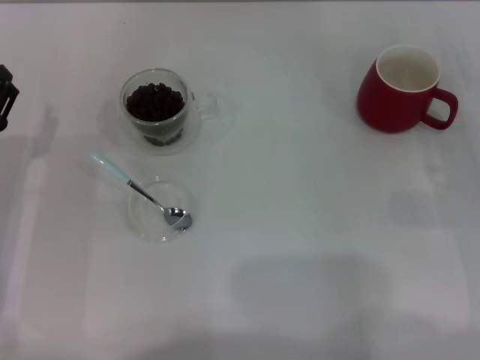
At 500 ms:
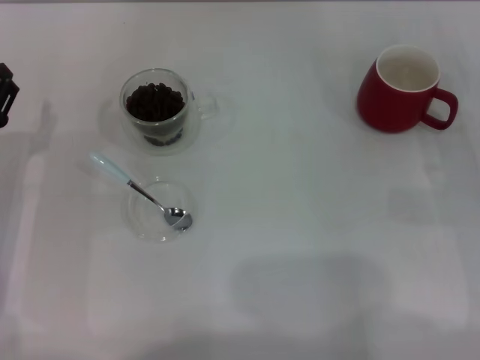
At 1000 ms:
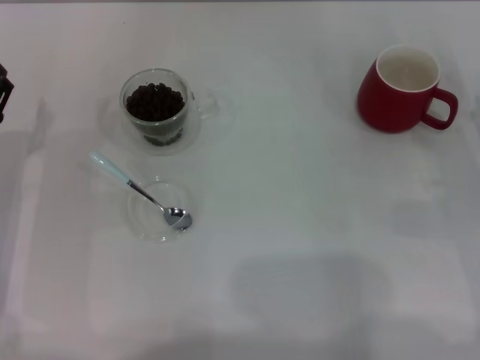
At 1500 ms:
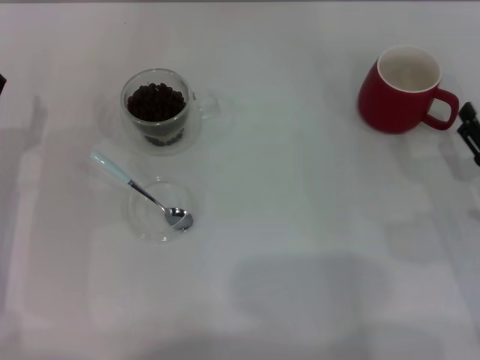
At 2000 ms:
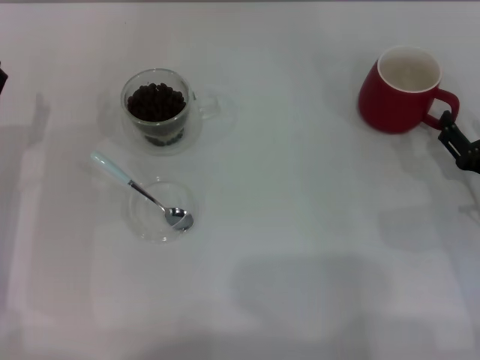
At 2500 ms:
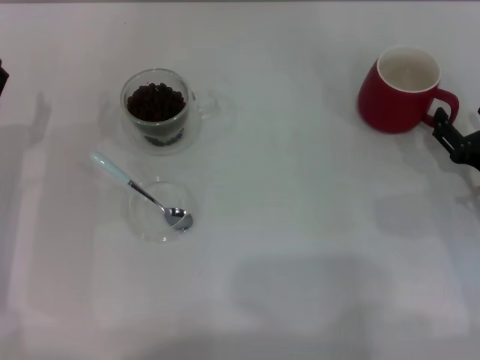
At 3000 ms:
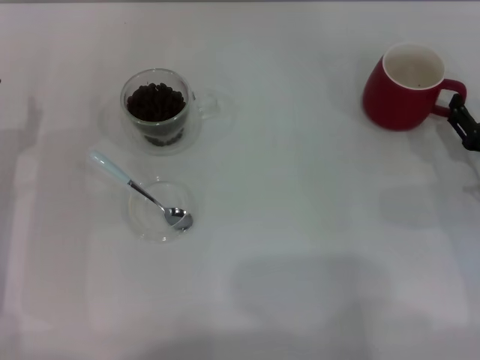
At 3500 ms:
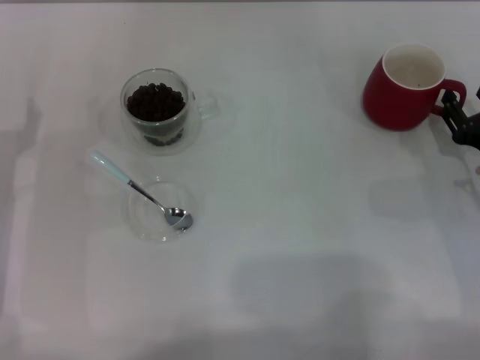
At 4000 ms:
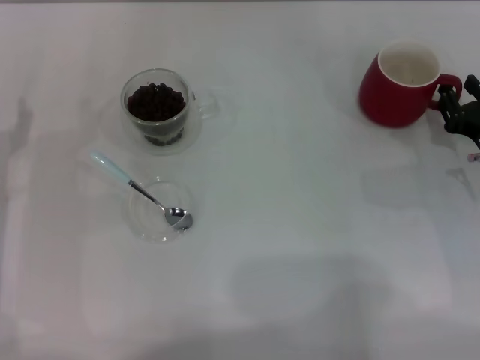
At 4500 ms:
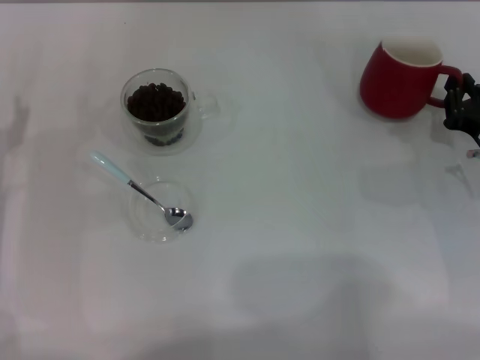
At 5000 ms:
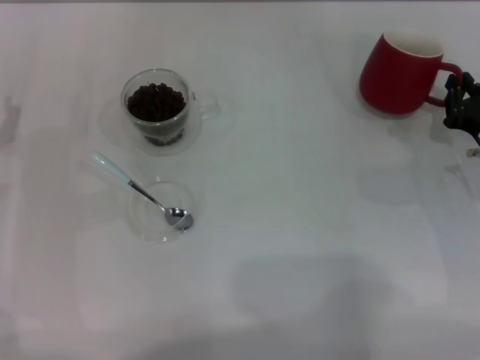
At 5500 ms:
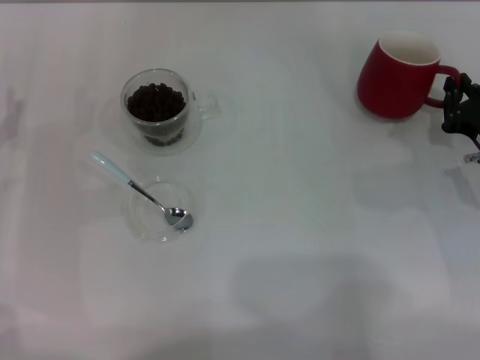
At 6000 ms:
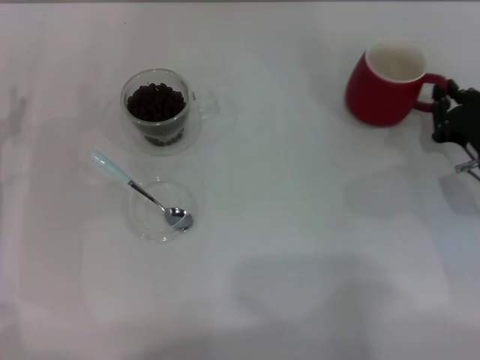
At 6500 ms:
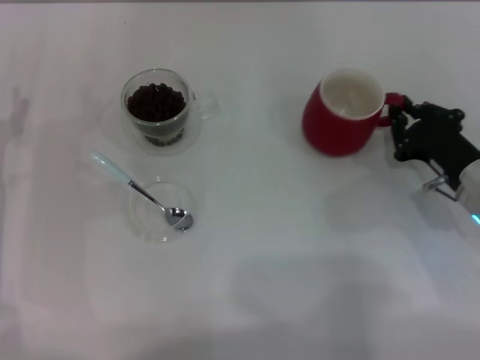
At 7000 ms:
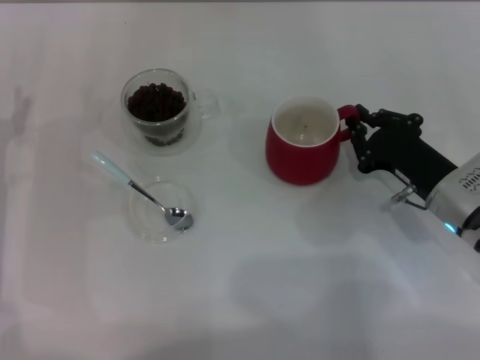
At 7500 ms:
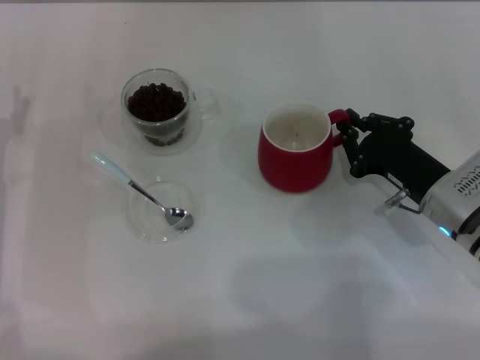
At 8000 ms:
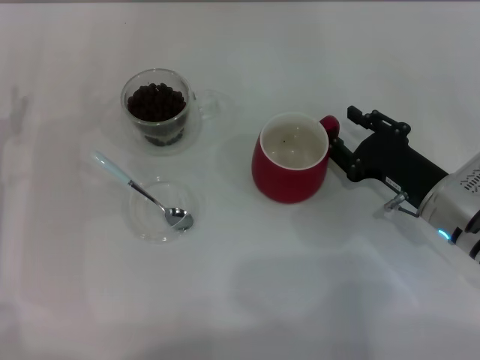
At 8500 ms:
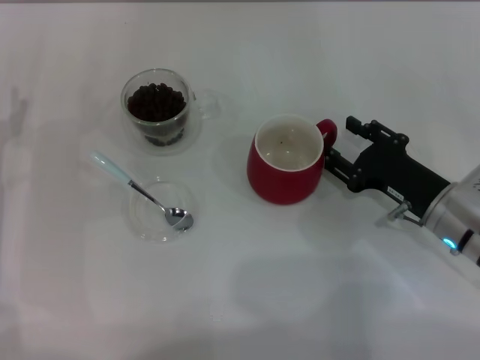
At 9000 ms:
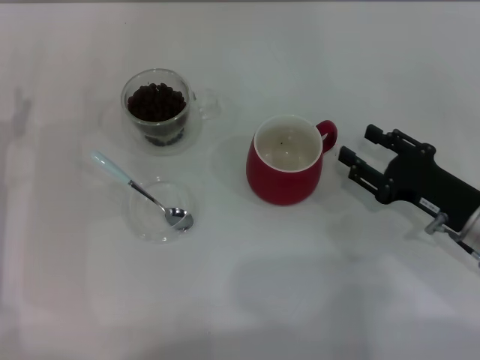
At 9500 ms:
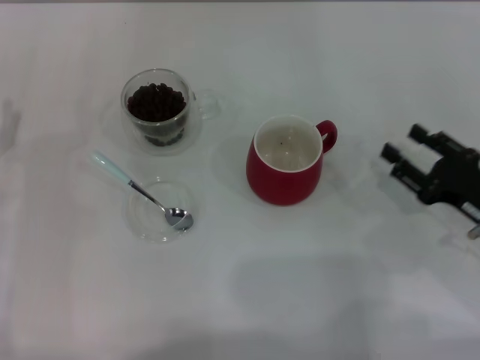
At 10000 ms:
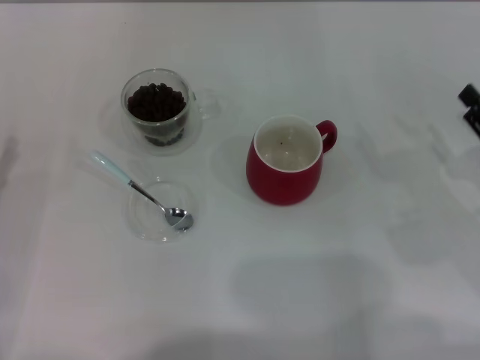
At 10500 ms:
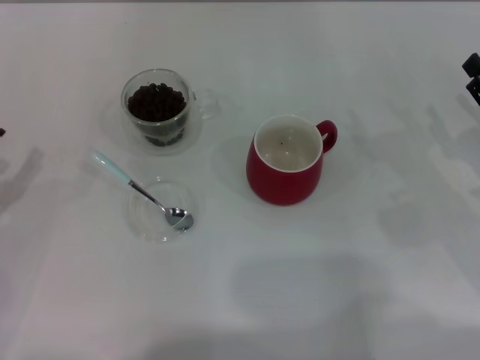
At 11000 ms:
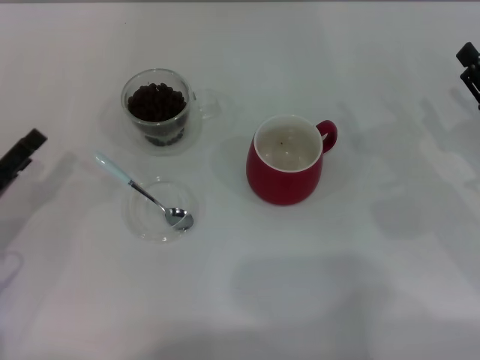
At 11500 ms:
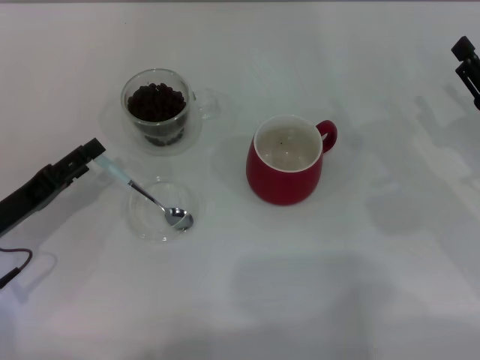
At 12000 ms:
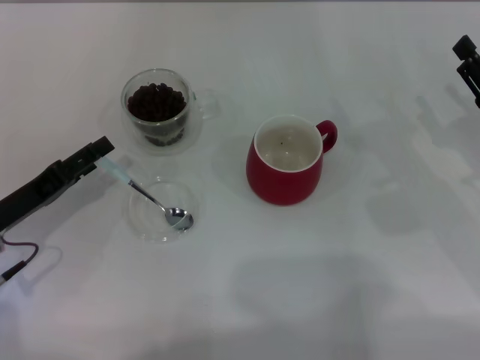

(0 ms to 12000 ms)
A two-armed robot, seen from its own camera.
Task of the whole recording: Use a blue spoon to take out the coffee beans from the glass and pour them into the red cup.
Step, 0 ms - 9000 ms: Move the cup to the center of view with the left gripper.
0 ms - 2000 ms: The right gripper changes place by roughly 5 cm.
2000 ms - 4000 ms: The right gripper goes about 5 cm forward, and closes up.
4000 ms - 6000 ms: The right gripper closes.
6000 ms - 8000 ms: The right gripper heads to the left, covering roughly 5 cm.
8000 ms - 10000 ms: The left gripper moves backward, some 5 cm. The right gripper is displaced to the right by approximately 10 cm, and opens its fingers.
10000 ms - 12000 ms: The left gripper heads to the right, covering roughly 5 cm.

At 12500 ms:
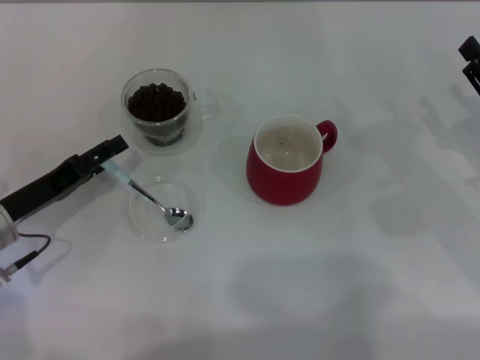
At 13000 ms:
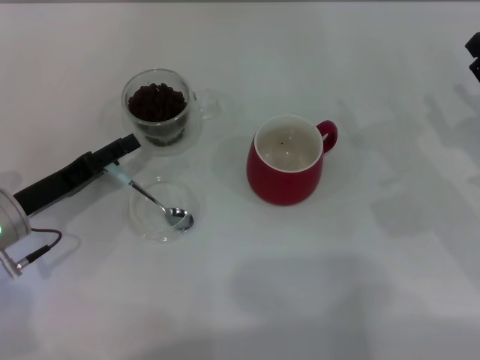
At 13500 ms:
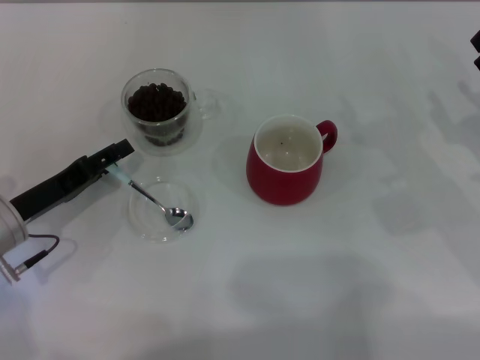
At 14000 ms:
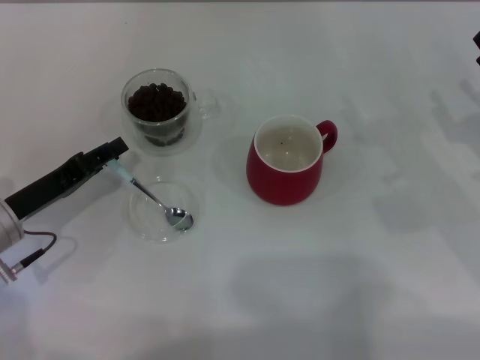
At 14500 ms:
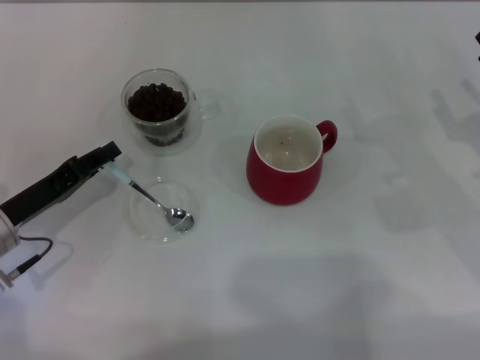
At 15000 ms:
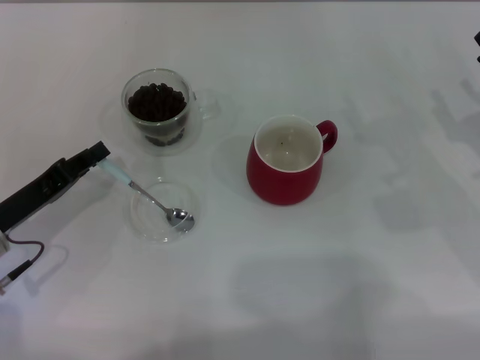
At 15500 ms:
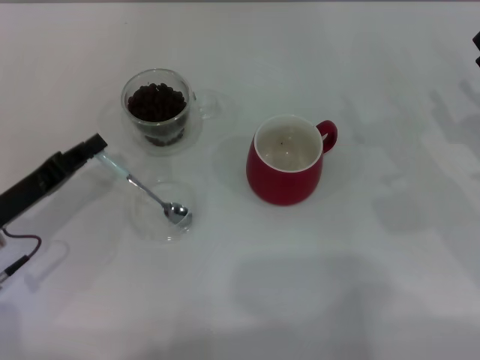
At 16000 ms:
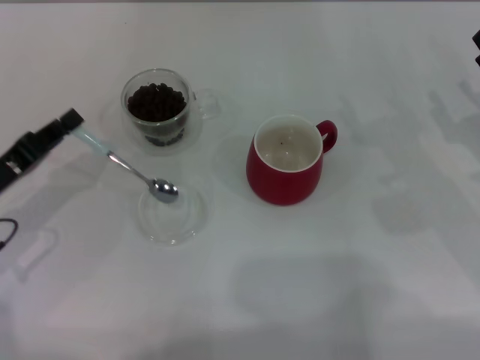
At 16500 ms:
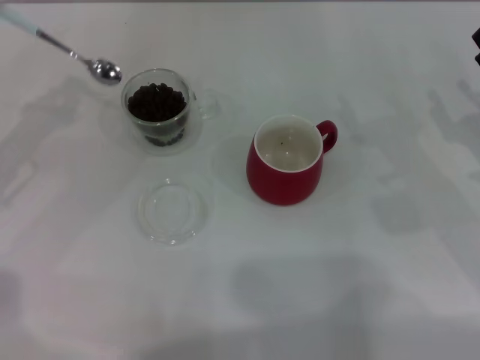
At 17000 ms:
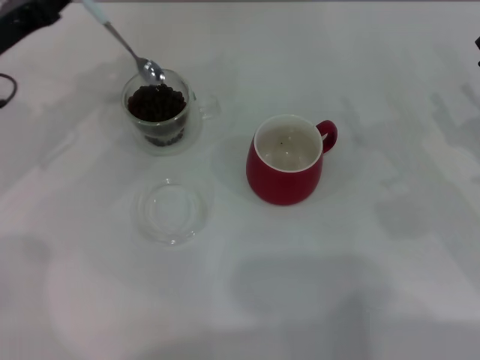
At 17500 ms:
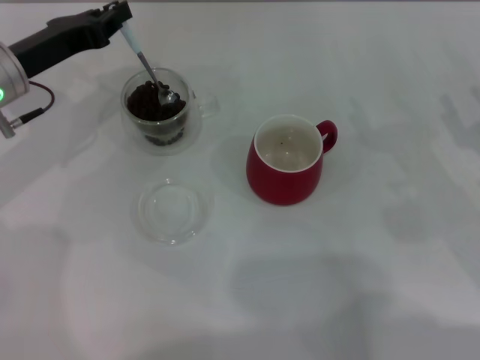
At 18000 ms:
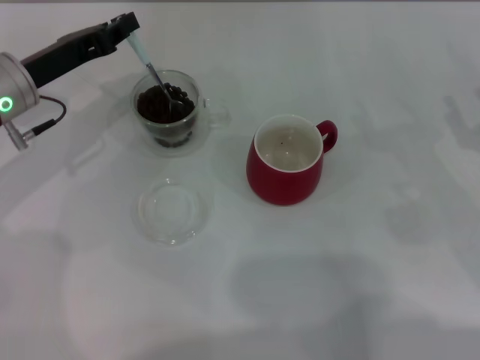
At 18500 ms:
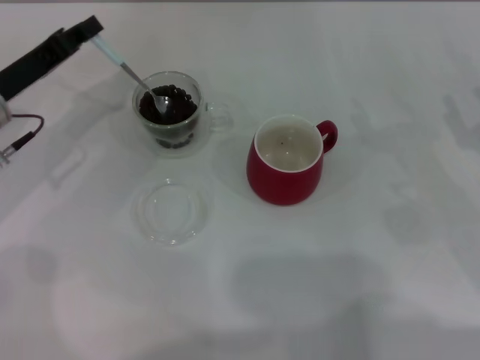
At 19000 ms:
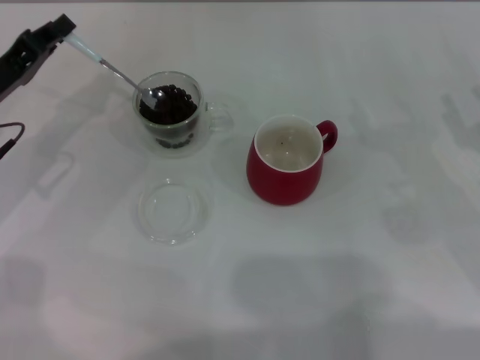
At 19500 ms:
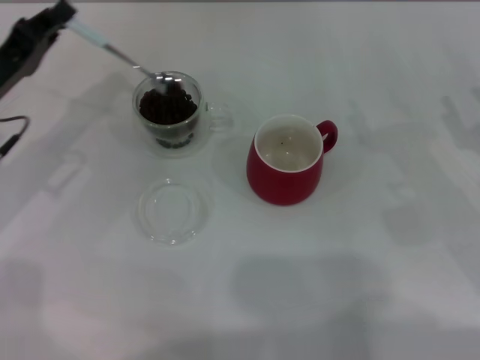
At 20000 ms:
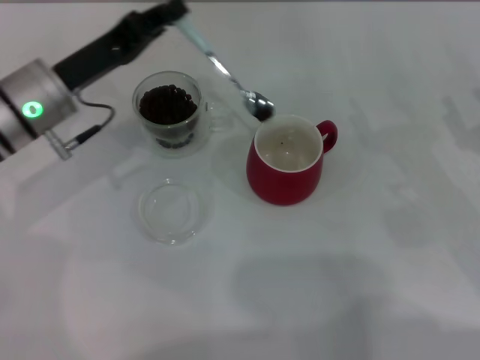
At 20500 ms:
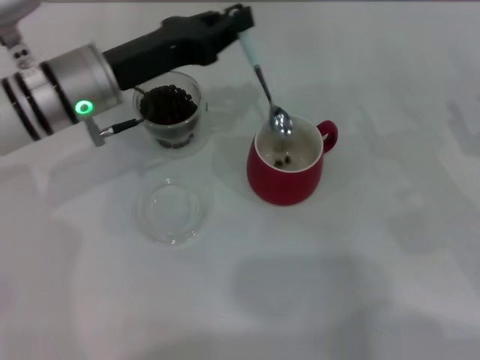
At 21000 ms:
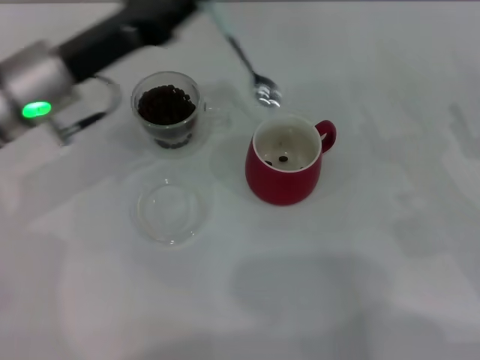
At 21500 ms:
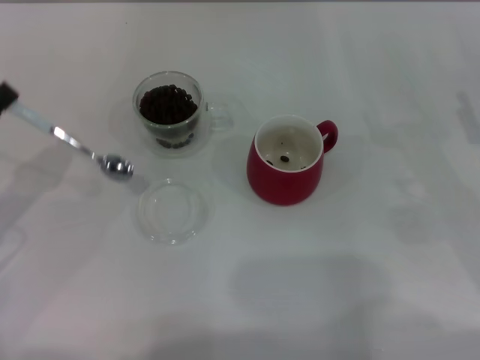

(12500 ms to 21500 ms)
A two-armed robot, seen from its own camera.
Task of the whole recording: Use a blue spoon to take out the coffee beans from the glass and pour them into the red cup.
Step, 12500 ms - 16000 ms: Pick up the spoon with the right gripper.
12500 ms - 14500 ms: The left gripper closes.
14500 ms - 17000 ms: The left gripper shifts roughly 15 cm forward and upward.
19500 ms - 21500 ms: The left gripper shifts approximately 10 cm backward, and moves about 10 cm to the right and comes back.

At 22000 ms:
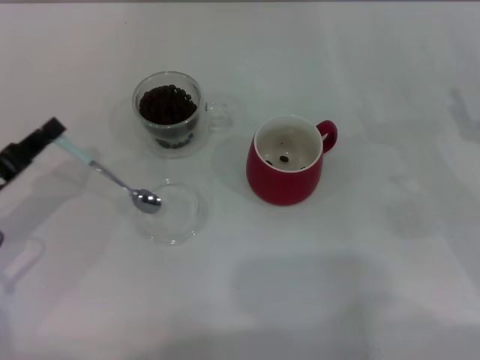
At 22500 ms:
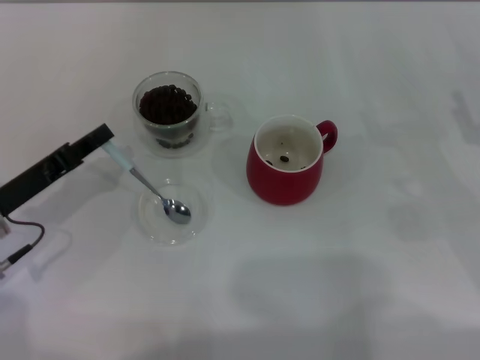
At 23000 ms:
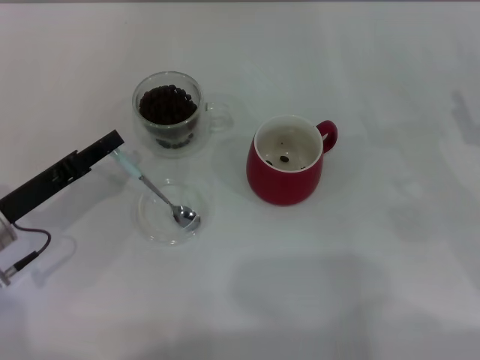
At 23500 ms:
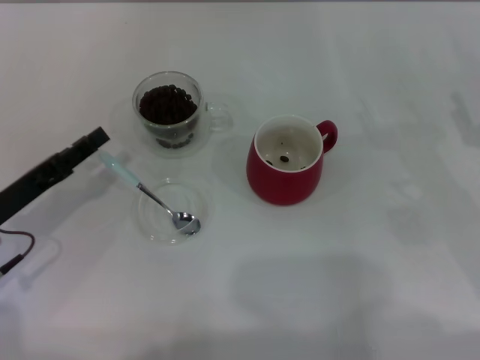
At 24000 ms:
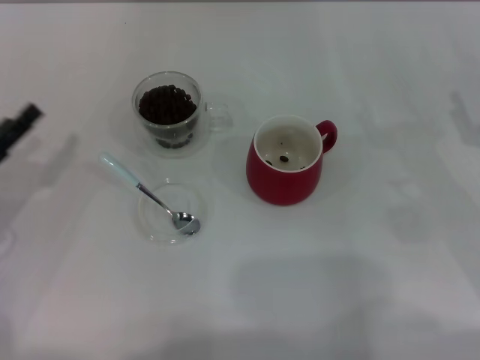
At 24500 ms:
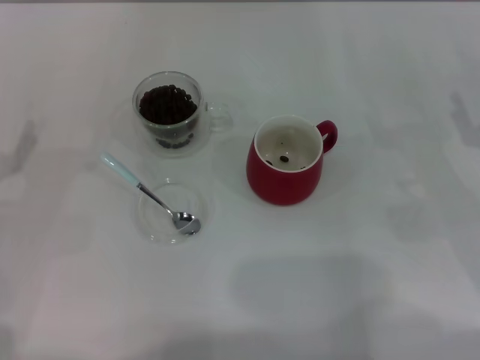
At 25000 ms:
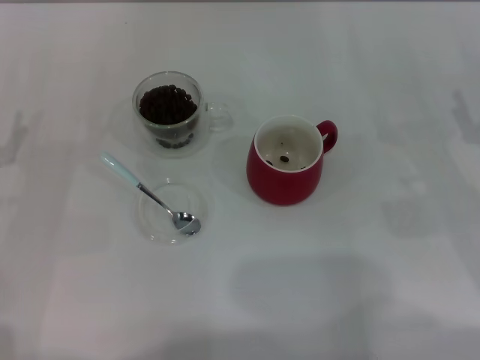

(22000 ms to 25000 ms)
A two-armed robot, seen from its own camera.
Task of the whole recording: Use a blue spoon to take out the coffee beans from the glass and pour them into the red cup.
Step, 22000 ms - 23500 ms: Place the spoon back in its original place with the right gripper.
22000 ms - 23500 ms: The left gripper opens up.
23500 ms - 25000 ms: The left gripper opens up.

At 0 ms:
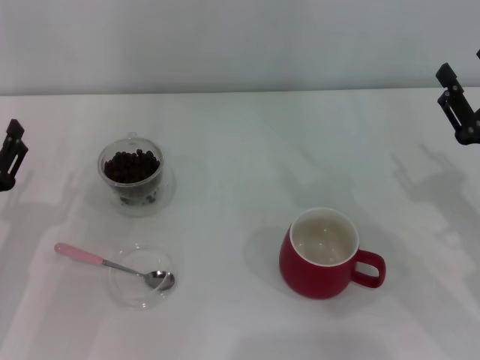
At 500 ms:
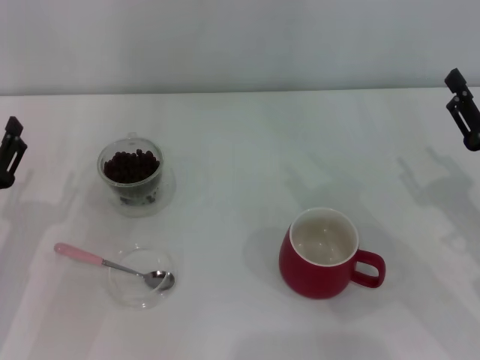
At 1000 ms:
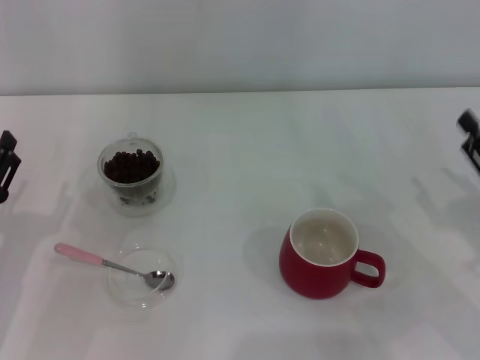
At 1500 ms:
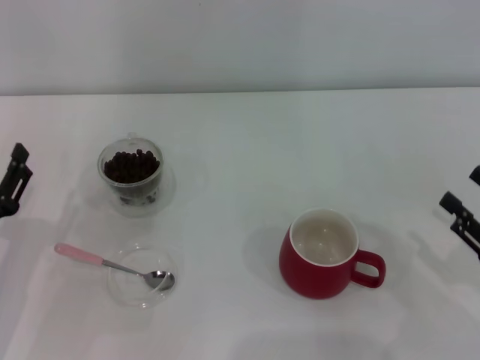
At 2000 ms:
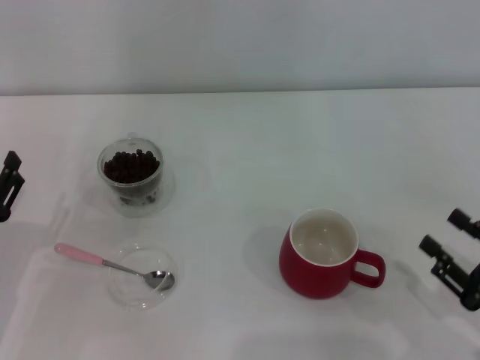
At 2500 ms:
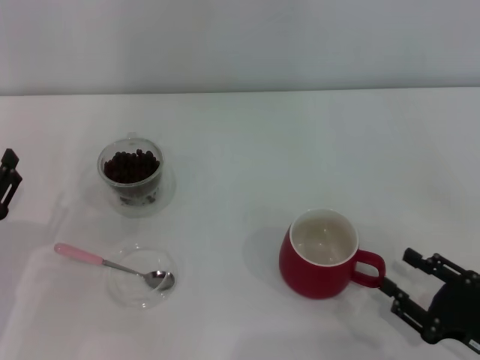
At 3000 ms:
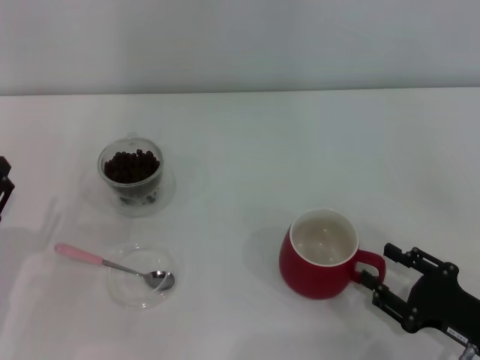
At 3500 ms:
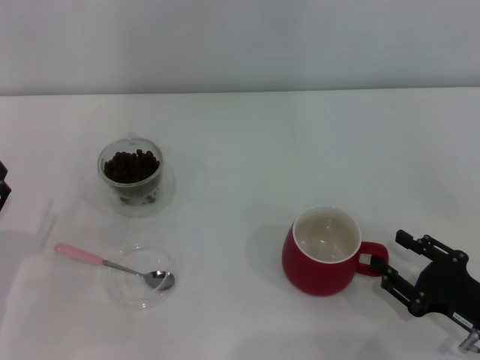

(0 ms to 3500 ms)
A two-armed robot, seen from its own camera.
Task of the whole recording: Use a pink spoon to take out the coffee beans from the glass and pour them into the red cup.
0 ms - 2000 ms: The right gripper is displaced backward and downward by about 10 cm.
2000 ms - 3500 ms: There are only small adjustments of the grippers.
